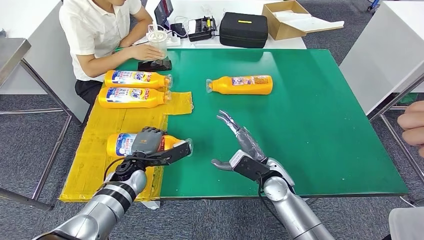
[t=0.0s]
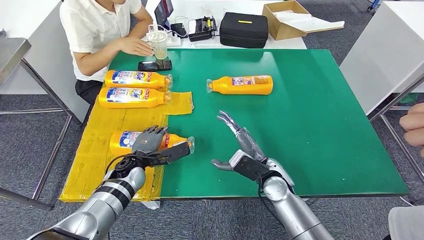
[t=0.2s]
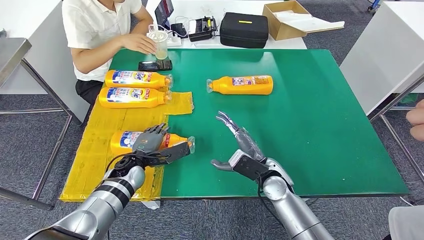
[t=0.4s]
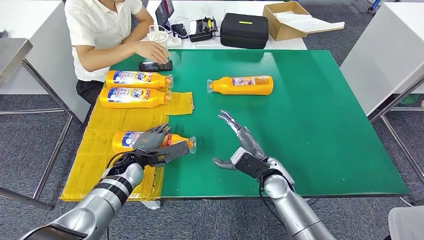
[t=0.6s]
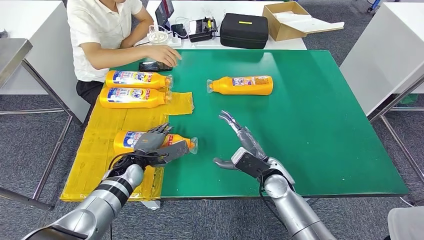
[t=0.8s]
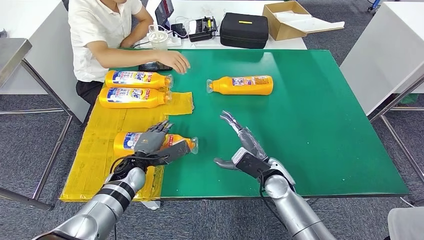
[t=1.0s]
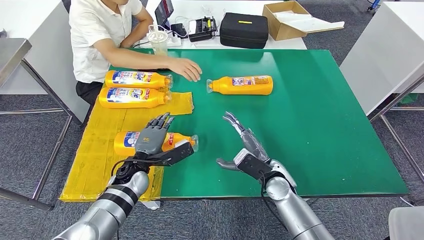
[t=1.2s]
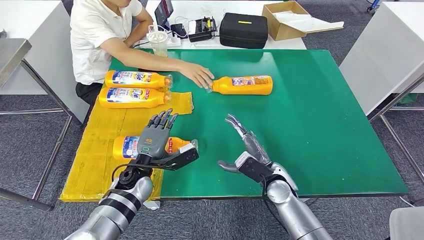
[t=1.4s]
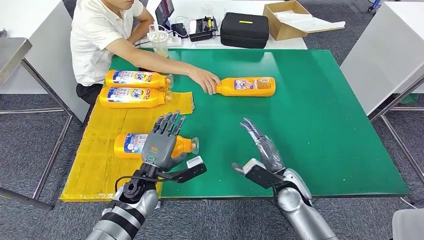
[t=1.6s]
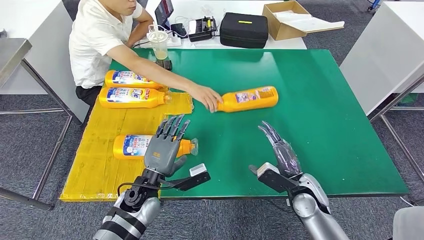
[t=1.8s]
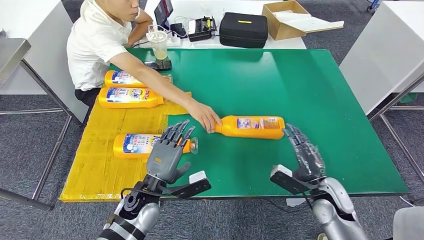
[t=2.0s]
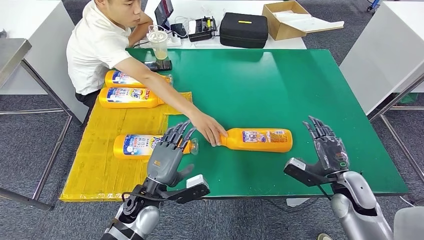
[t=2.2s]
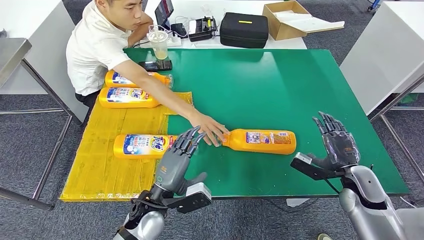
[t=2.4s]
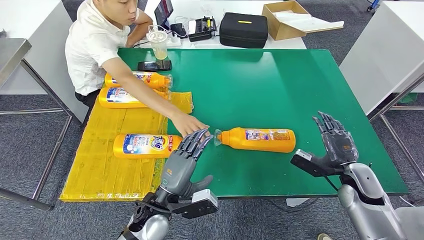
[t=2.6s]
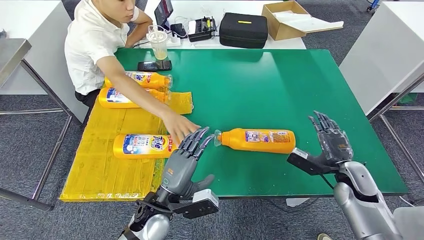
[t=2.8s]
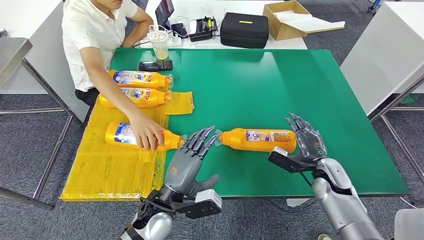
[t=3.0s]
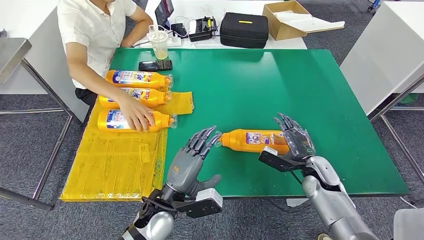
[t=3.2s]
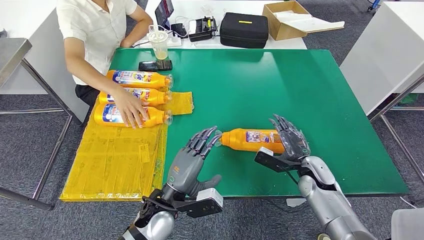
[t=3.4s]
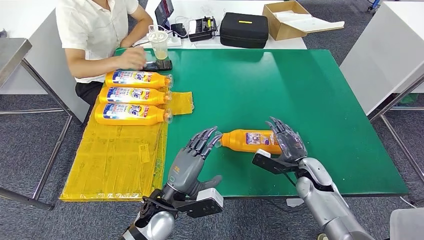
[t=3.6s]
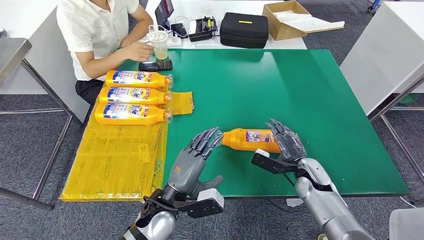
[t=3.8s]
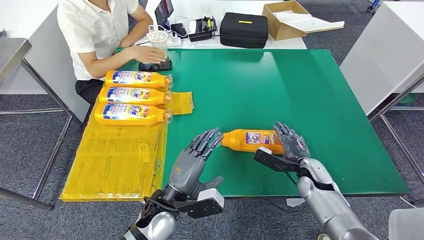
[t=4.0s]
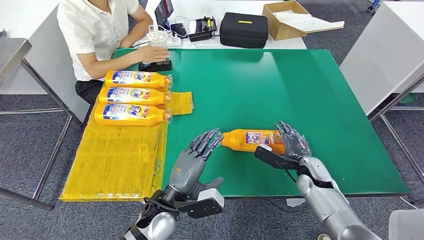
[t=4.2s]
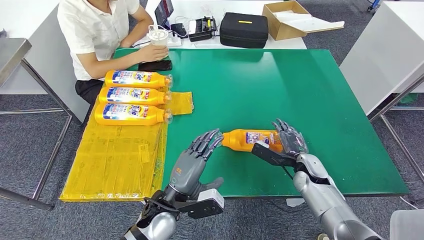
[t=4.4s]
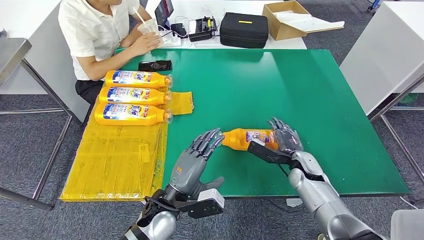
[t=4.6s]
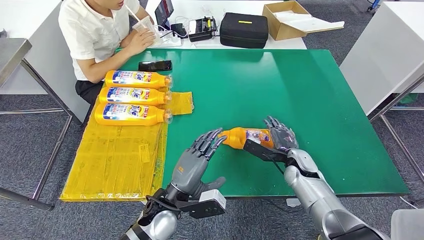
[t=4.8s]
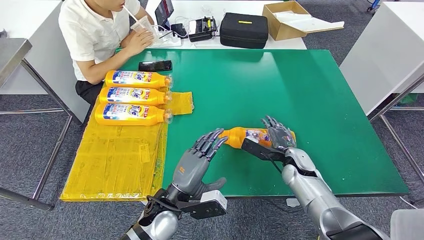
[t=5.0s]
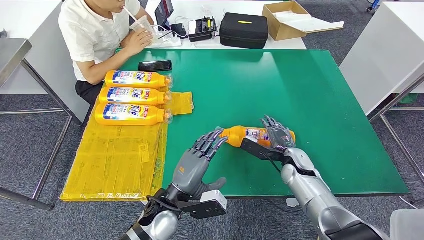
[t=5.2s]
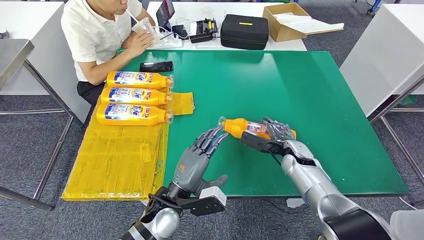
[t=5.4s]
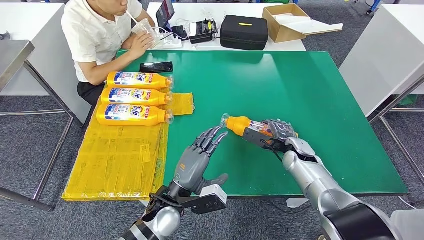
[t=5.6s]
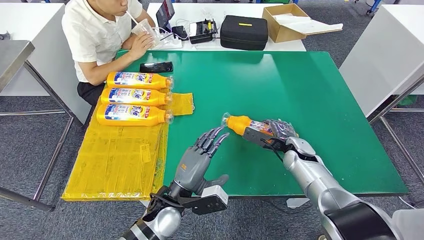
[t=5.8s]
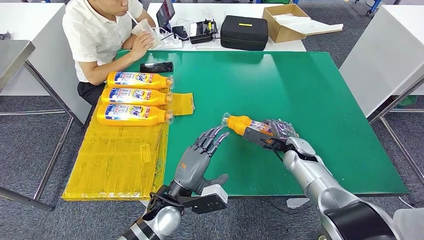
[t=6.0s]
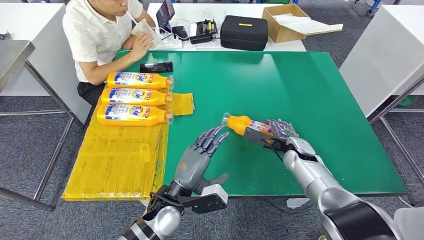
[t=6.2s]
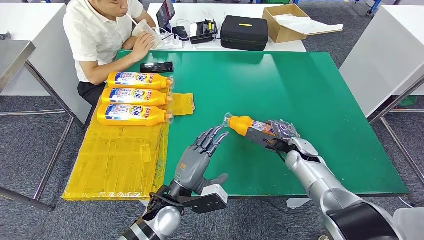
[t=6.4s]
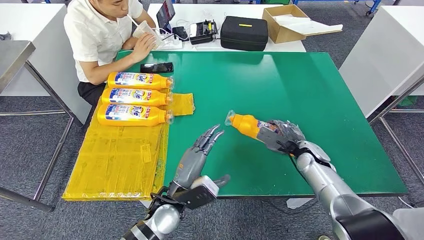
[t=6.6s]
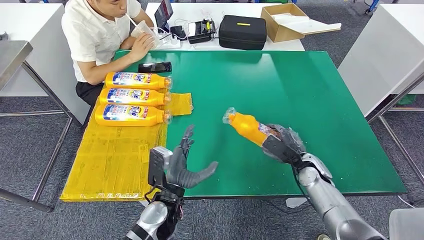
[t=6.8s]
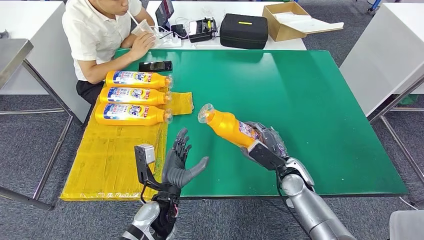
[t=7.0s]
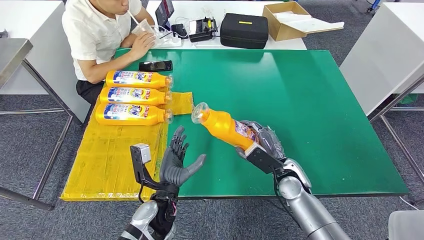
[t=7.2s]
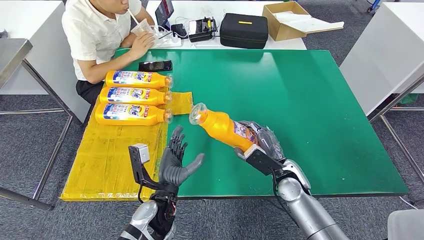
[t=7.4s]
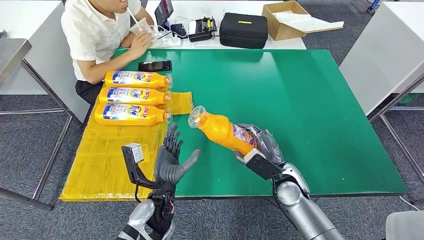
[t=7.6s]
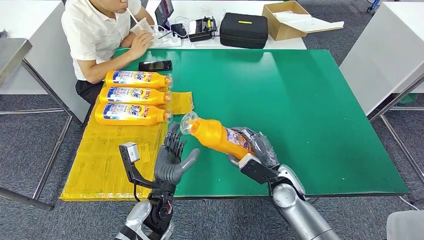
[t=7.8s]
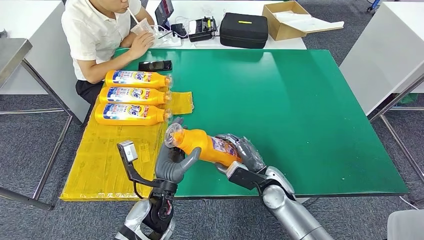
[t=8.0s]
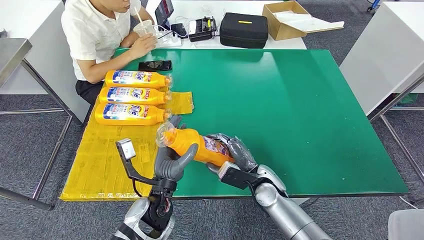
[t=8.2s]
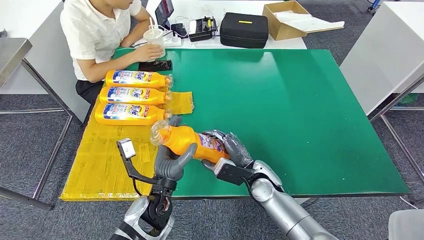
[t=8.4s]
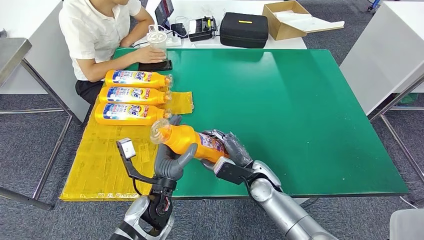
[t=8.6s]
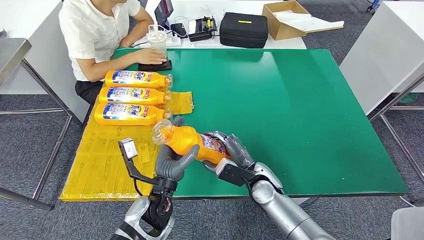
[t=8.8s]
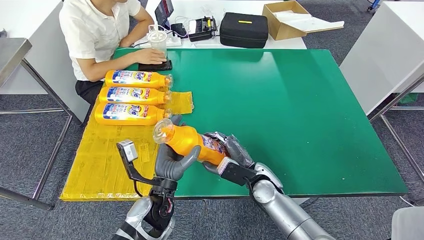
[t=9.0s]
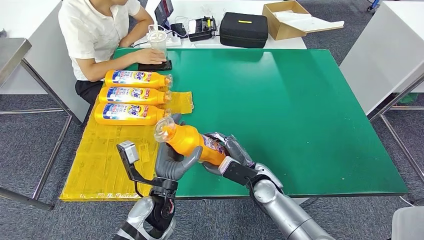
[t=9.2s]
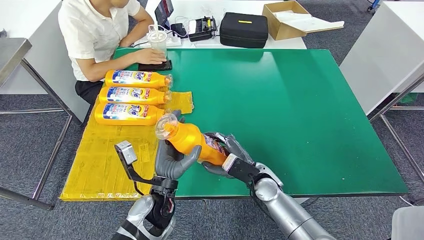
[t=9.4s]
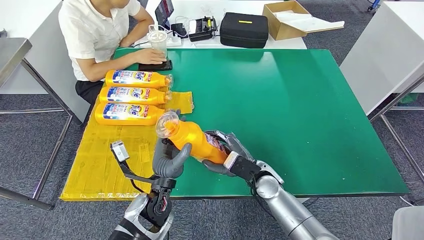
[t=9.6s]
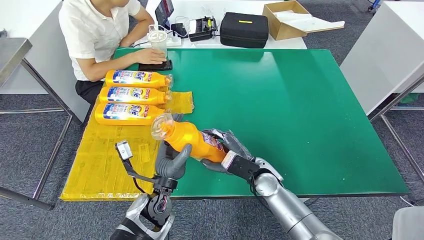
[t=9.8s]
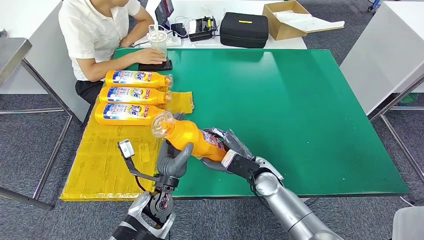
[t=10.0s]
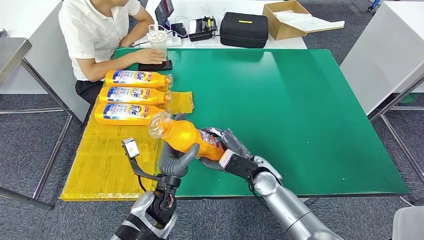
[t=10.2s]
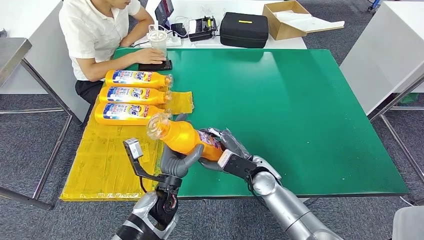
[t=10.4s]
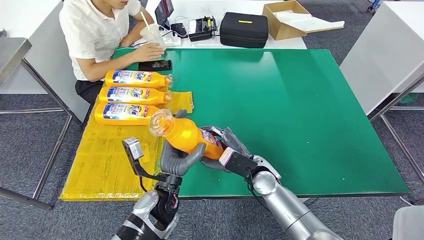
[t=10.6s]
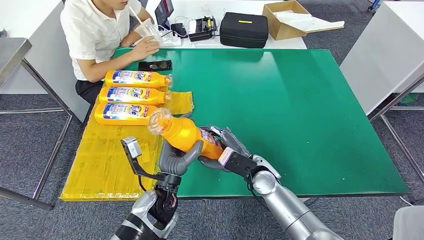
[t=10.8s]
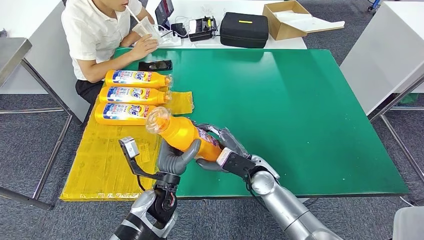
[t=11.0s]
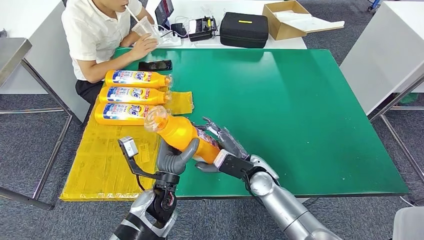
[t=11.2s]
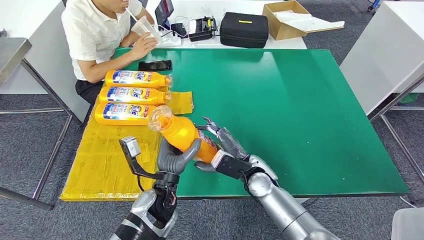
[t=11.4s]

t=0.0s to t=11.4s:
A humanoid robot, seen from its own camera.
Step, t=0.8s to t=8.8s: Pick up the fast-moving consumer goods bottle from the table.
t=0.0s to t=1.4s: The hands make only small movements.
t=2.8s to t=4.2s: The right hand goes about 5 cm to the left.
t=7.2s to t=8.6s: The right hand is displaced to the left by some 10 cm.
t=8.6s to t=11.4s: The hands move only a little.

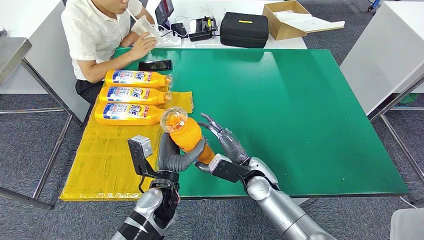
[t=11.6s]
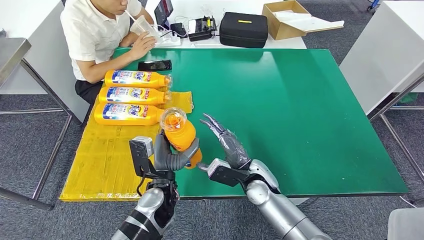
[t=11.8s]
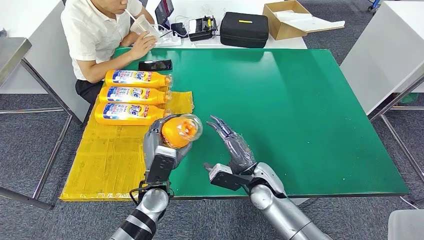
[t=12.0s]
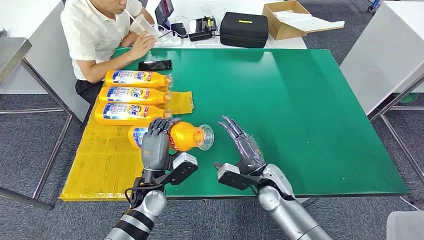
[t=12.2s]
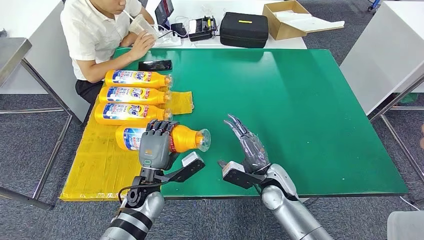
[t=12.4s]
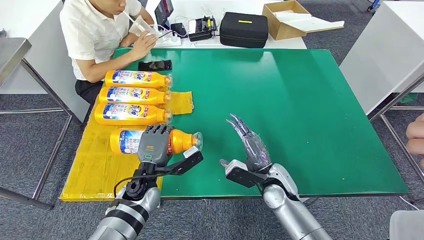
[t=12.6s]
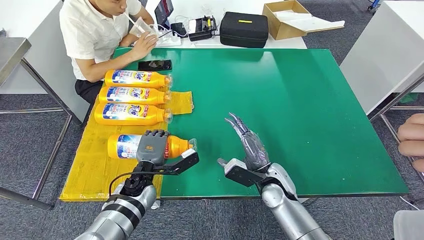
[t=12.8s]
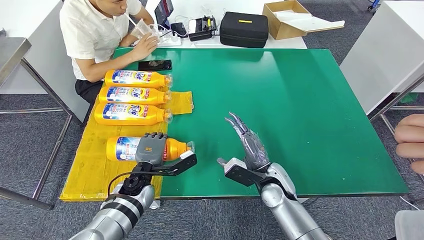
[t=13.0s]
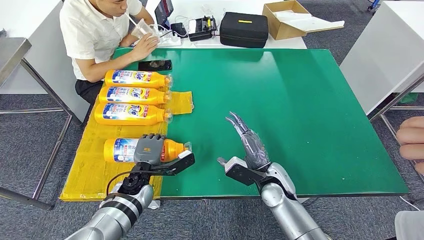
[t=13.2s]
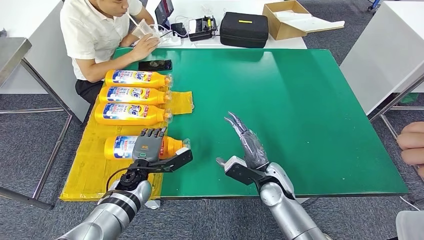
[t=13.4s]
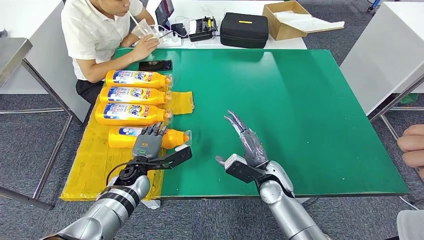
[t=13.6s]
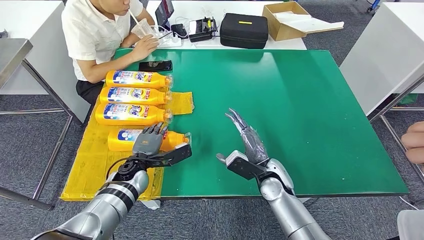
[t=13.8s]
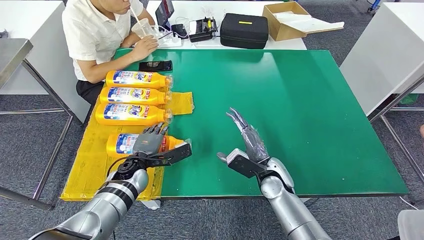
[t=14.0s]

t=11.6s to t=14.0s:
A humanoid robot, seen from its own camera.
Step, t=11.6s to t=14.0s: Flip the fast-moving consumer goods bottle to the front side.
t=11.6s to t=12.8s: The left hand goes roughly 10 cm to the left and forward.
